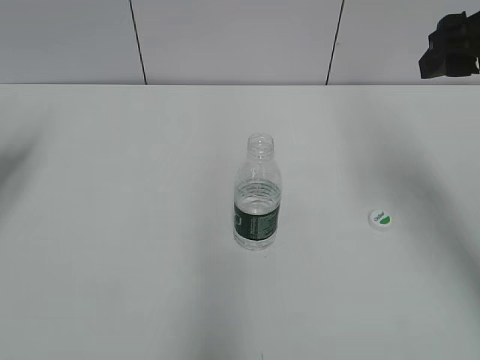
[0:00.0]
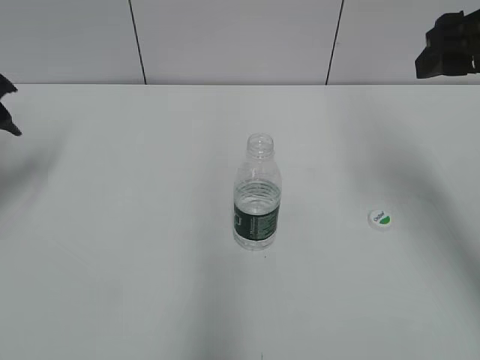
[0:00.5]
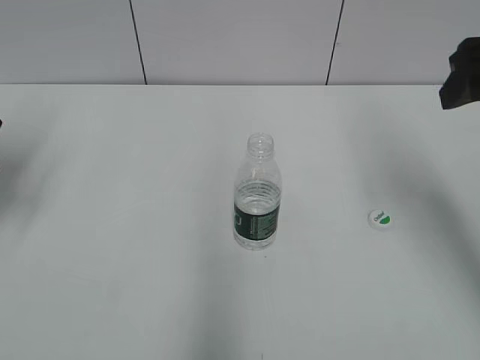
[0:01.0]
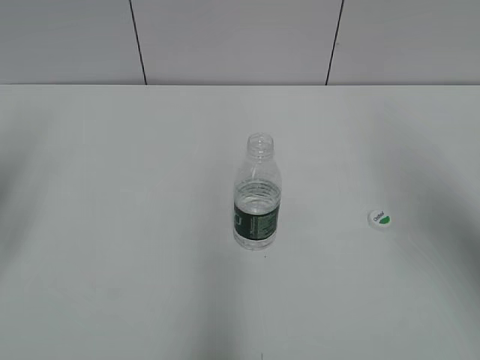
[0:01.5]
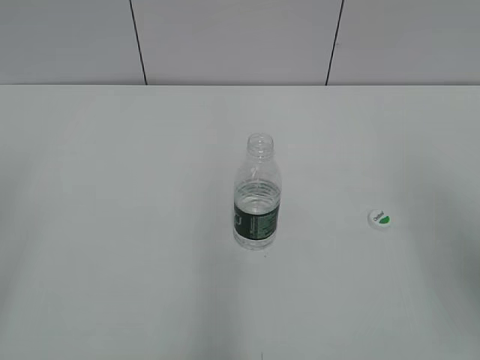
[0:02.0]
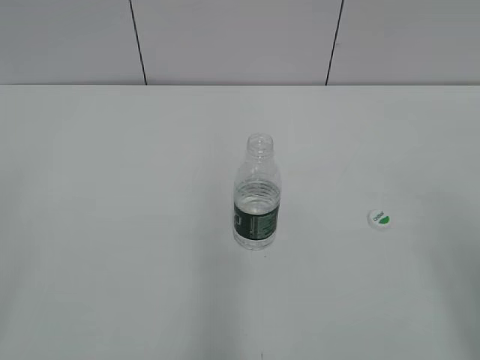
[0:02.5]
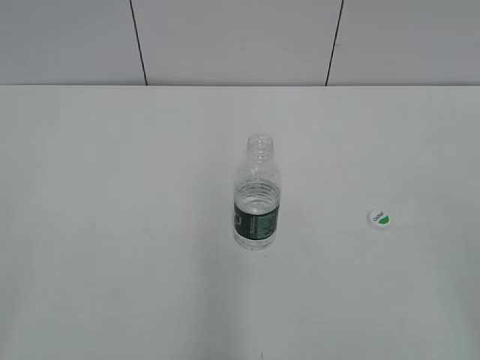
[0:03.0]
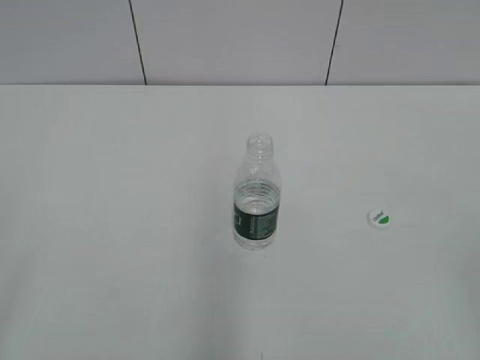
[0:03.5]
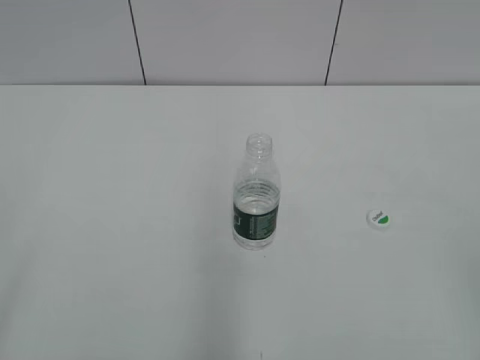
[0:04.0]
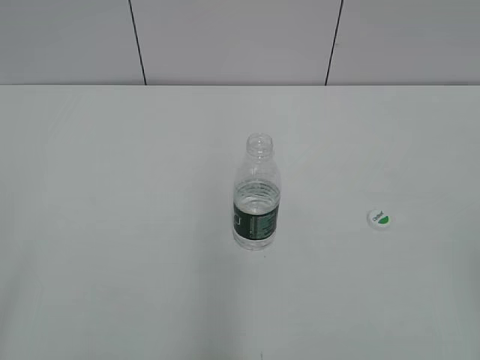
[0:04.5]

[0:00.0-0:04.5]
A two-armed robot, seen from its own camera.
0:00.0 to 0:02.0: The right gripper goes some 15 cm backward.
0:02.0 to 0:04.5: The right gripper shifts roughly 15 cm backward.

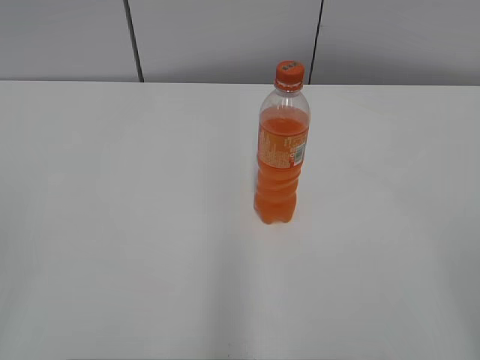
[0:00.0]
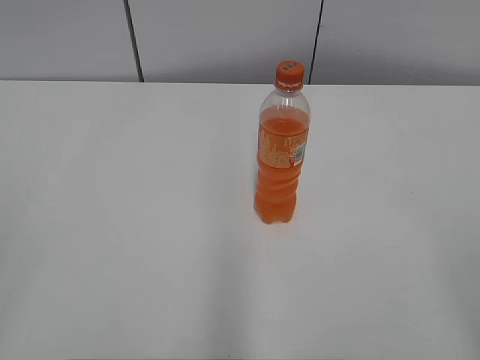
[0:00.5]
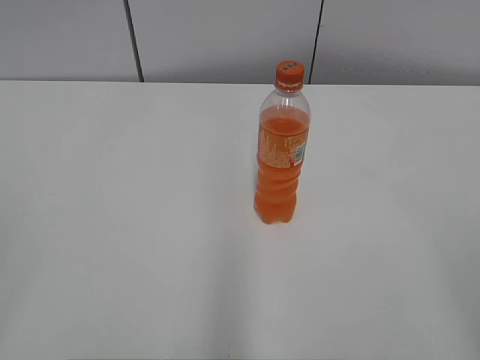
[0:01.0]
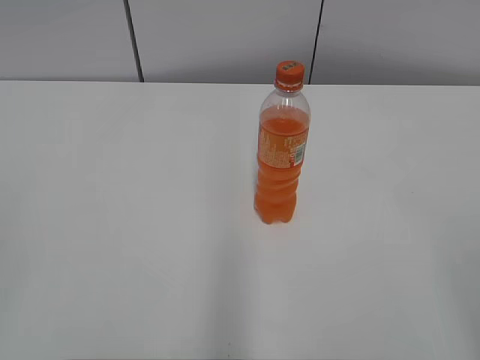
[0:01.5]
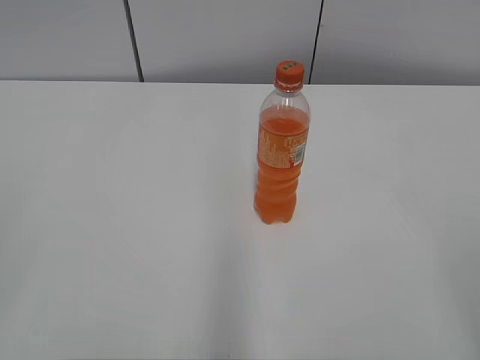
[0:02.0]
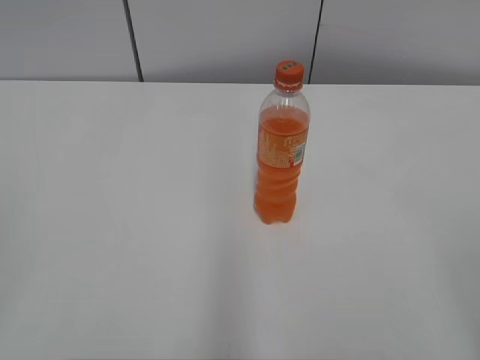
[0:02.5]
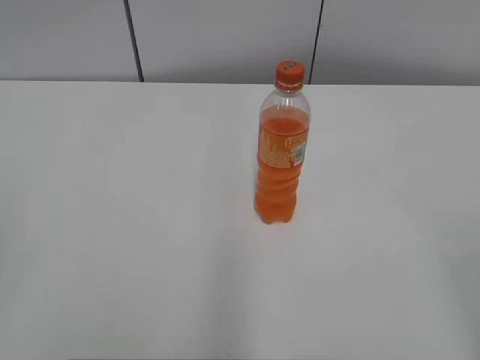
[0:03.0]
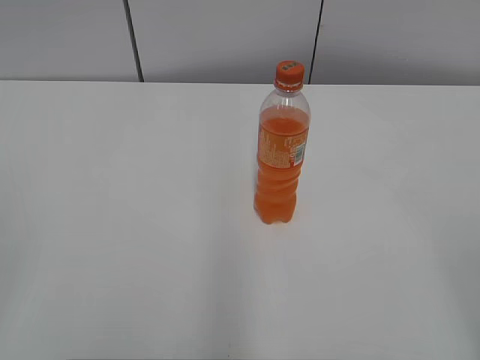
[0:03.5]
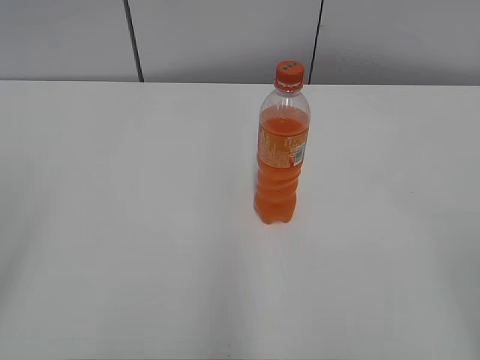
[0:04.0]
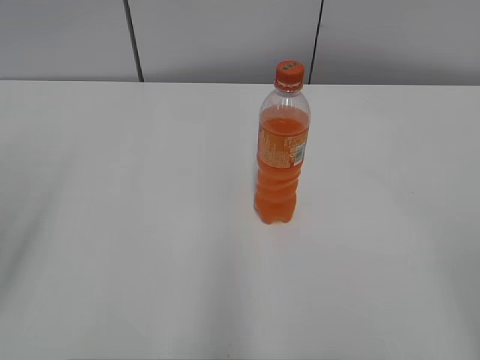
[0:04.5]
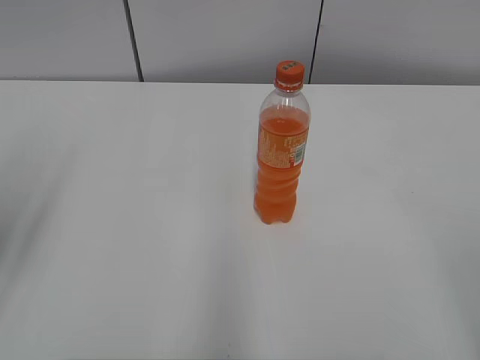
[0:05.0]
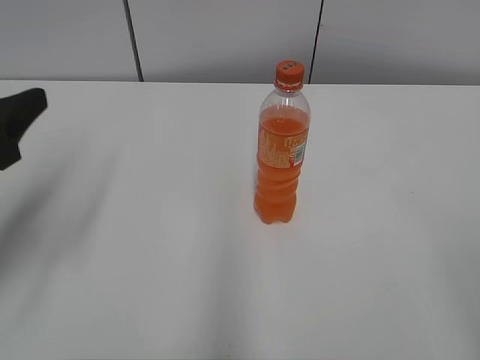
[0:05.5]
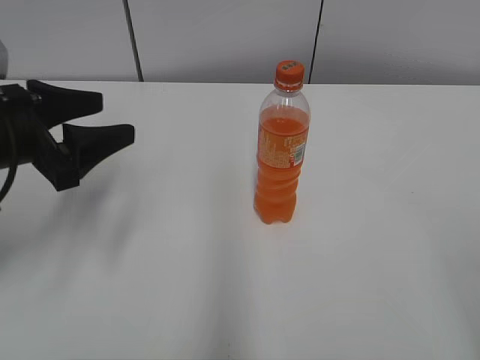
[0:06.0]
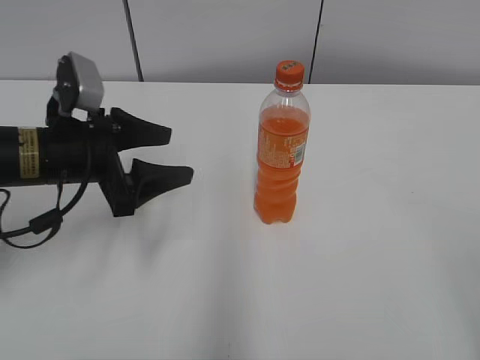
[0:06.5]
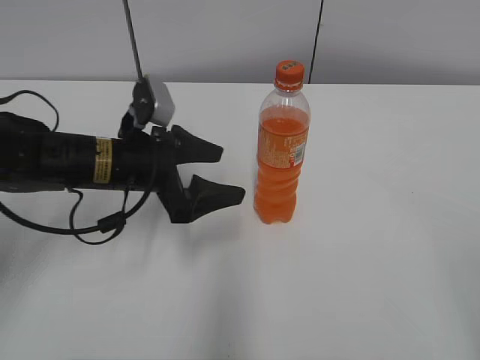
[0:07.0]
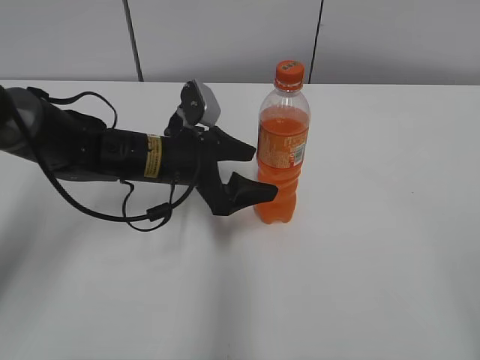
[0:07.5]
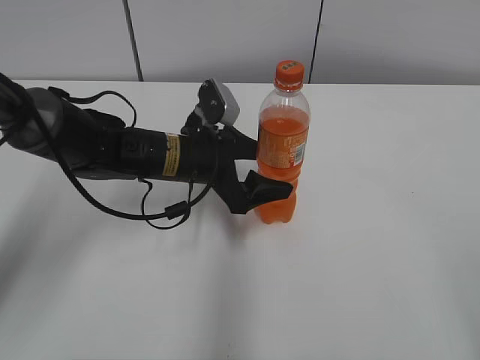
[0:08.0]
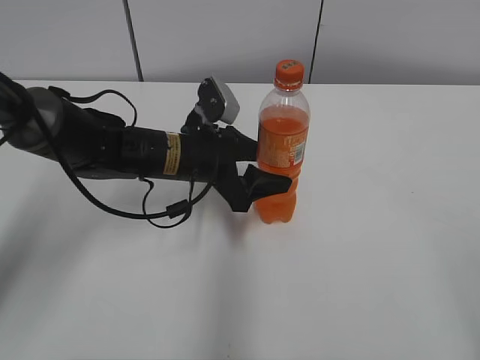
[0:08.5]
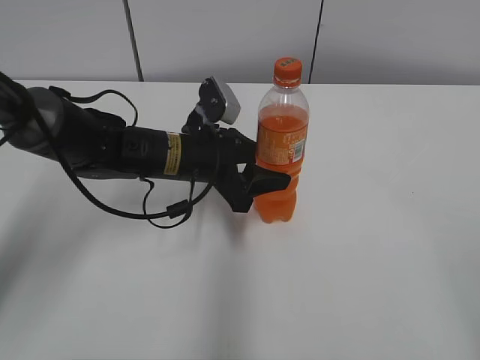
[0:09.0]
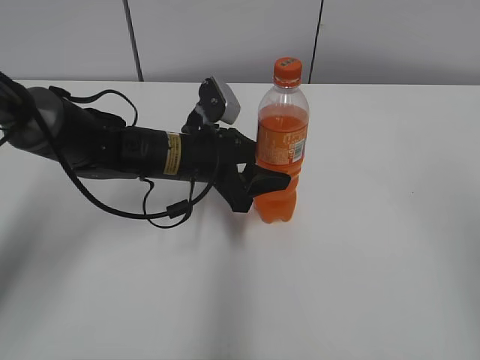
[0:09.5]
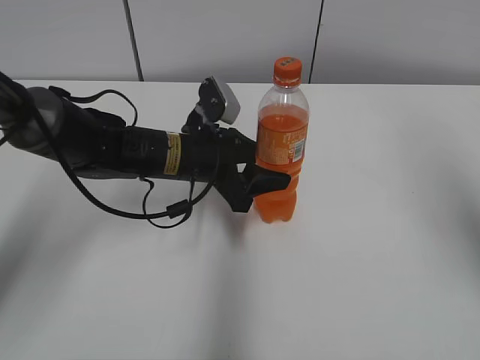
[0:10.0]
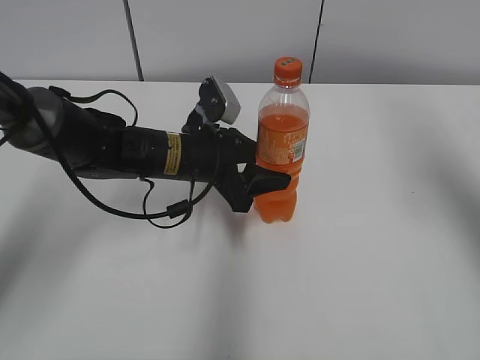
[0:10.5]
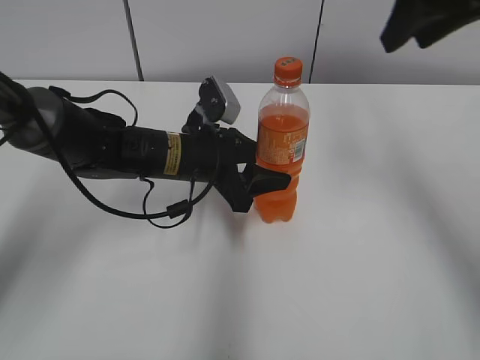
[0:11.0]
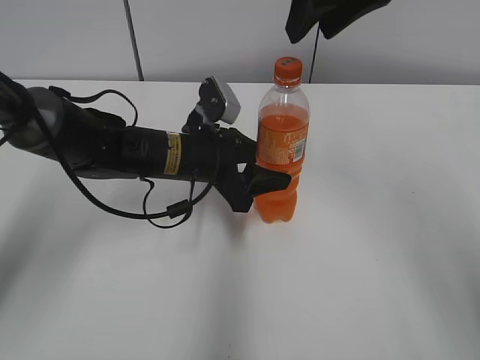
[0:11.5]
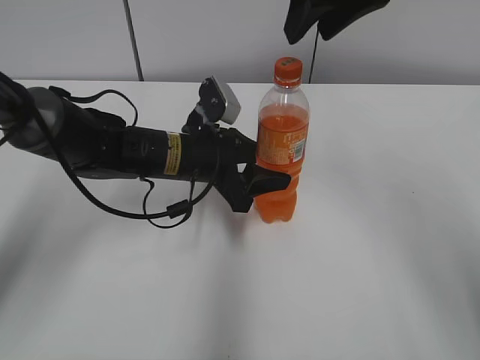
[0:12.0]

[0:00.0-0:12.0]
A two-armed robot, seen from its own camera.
Step, 0:00.0 to 0:09.0: Grab the Mirinda with the left hand.
0:04.0 to 0:06.0: The left gripper travels forward and downward by roughly 25 cm.
0:06.0 to 0:08.0: The left gripper shifts approximately 20 cm to the right, downward and forward.
0:08.0 to 0:10.0: The left gripper closes. Meanwhile the right gripper is displaced forward and upward by about 20 cm, and closes up.
0:10.0 to 0:12.0: The right gripper moves to the left and forward, approximately 25 cm.

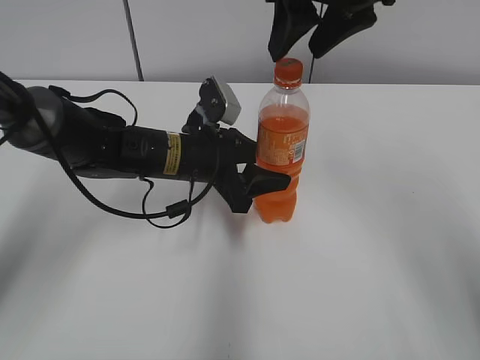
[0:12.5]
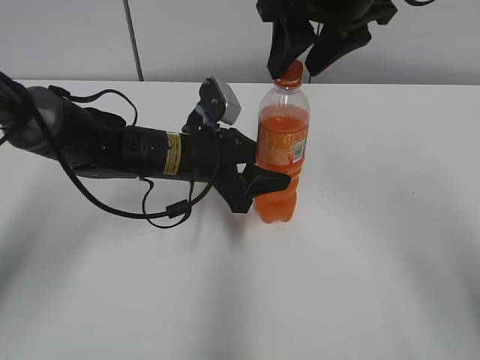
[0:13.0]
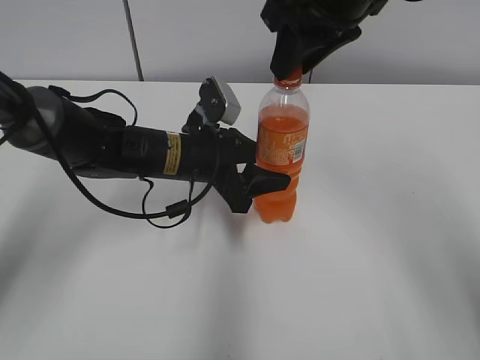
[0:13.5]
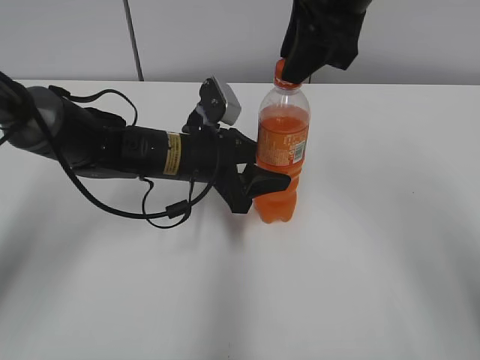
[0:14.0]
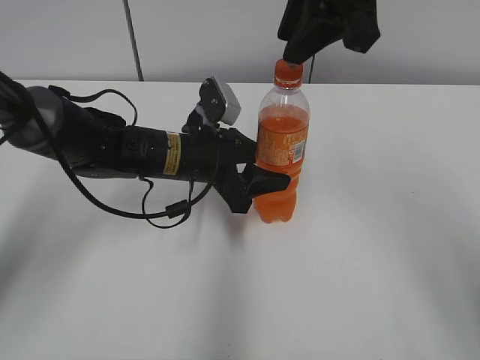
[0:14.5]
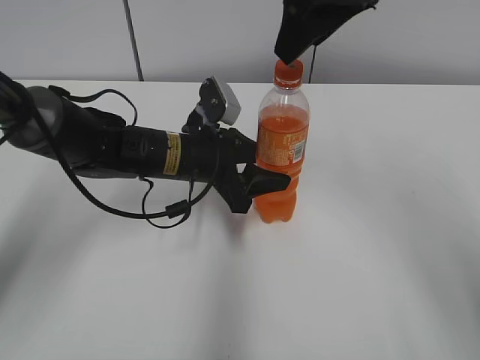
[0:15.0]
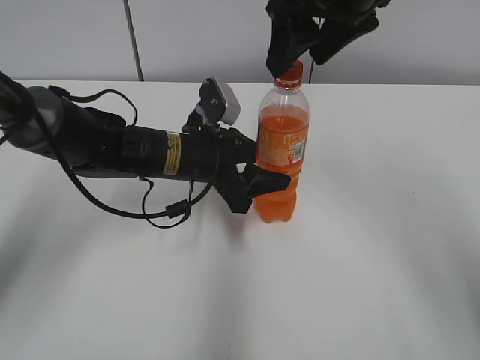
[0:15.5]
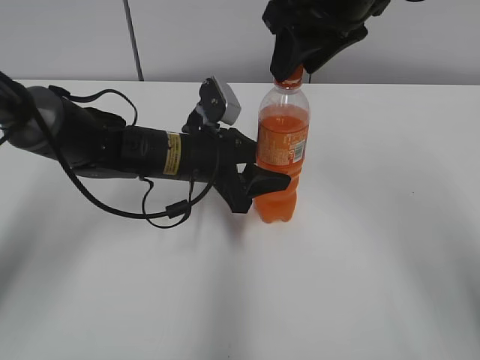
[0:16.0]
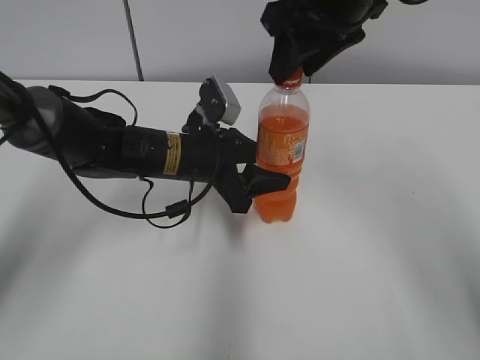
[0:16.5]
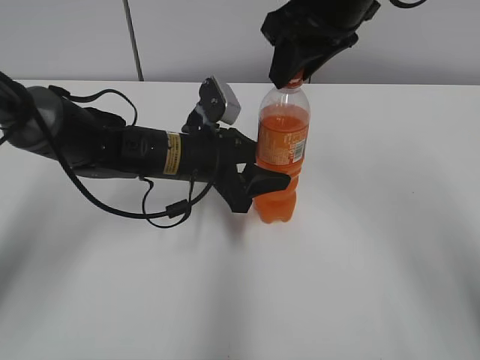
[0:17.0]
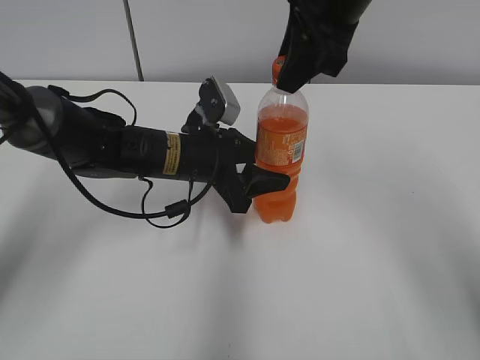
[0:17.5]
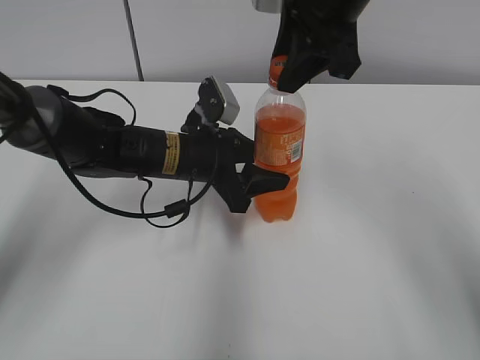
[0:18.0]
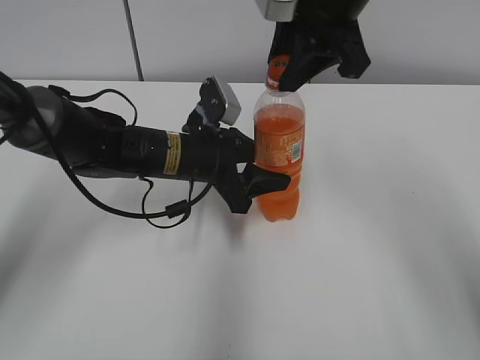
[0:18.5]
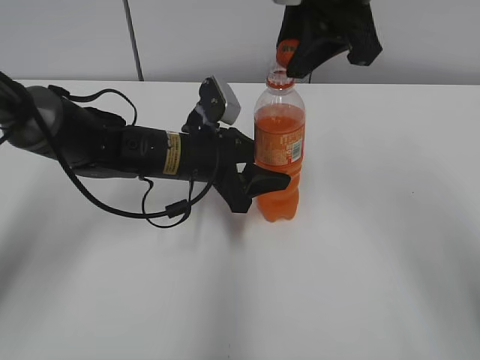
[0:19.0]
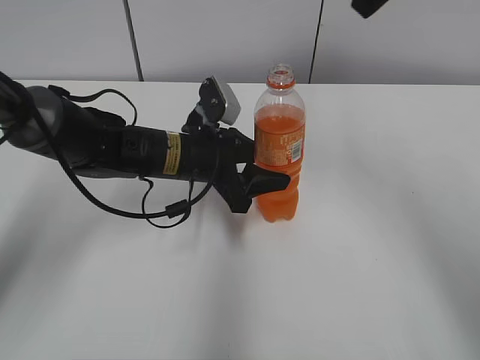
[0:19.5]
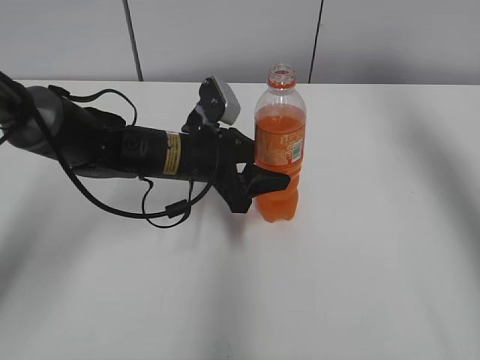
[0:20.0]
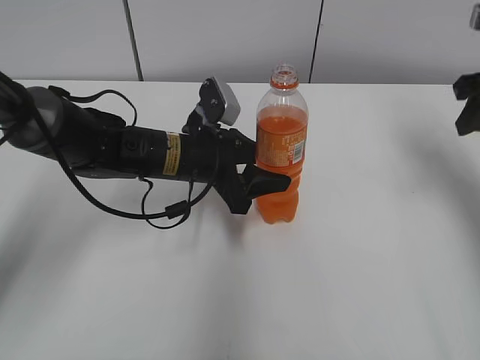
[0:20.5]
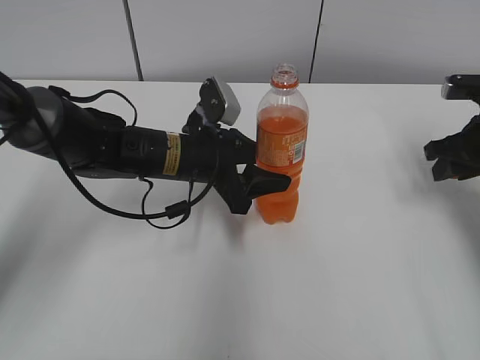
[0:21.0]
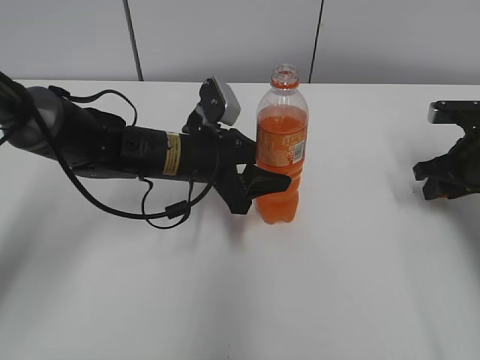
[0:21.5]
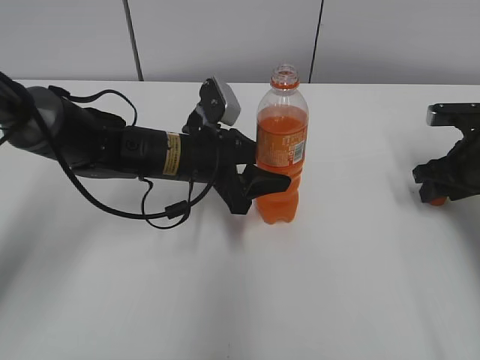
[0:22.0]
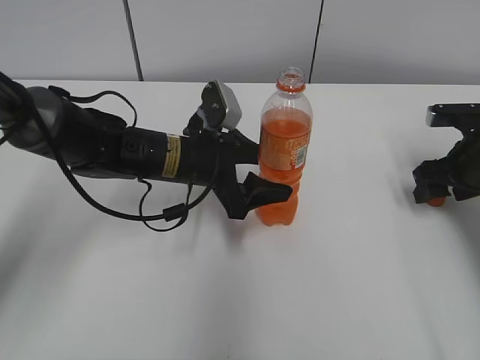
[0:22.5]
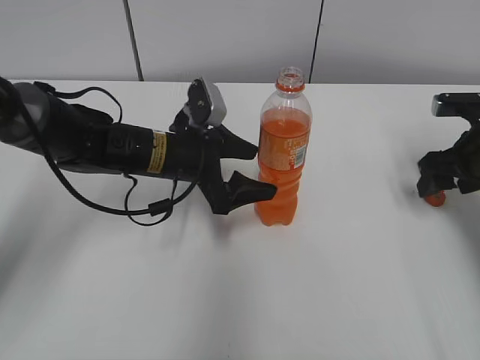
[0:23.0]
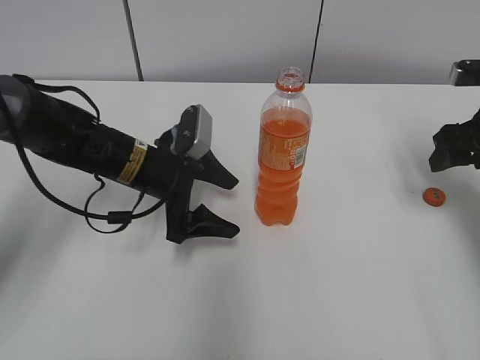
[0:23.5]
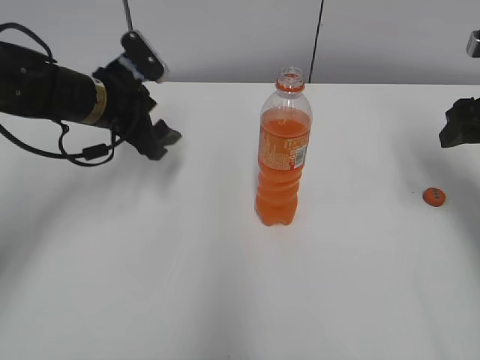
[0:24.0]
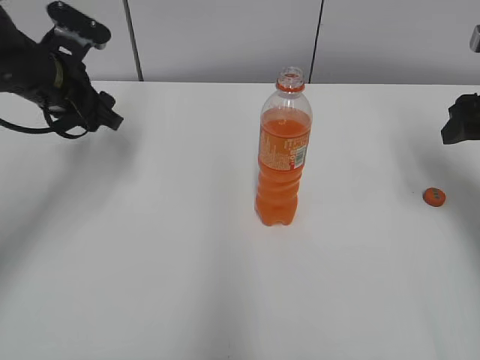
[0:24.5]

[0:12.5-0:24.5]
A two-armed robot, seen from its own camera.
Step, 0:12.5 to 0:18.5: Twist the bottle cap with the right hand.
0:12.5 to 0:14.5: The right gripper closes up.
0:14.5 to 0:16.5: The right gripper opens, then closes once more.
0:18.5 to 0:20.5: The right gripper travels to the right by roughly 20 cm.
0:20.5 to 0:22.5: The right gripper shifts about 15 cm downward, and opens up.
0:22.5 to 0:24.5: The left gripper is displaced to the left and upward by roughly 15 cm; the right gripper is displaced upward by approximately 10 cm.
